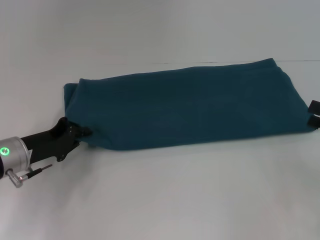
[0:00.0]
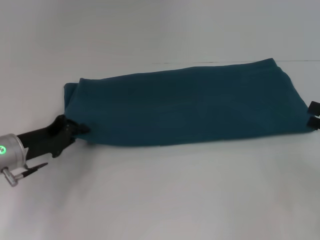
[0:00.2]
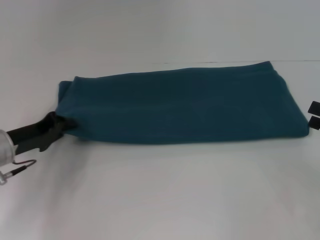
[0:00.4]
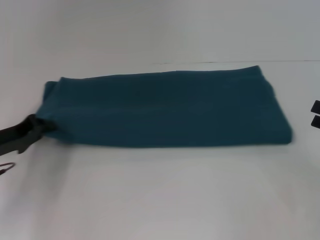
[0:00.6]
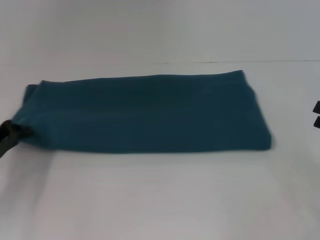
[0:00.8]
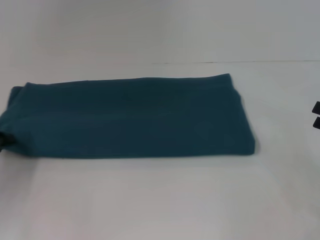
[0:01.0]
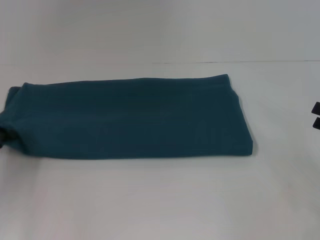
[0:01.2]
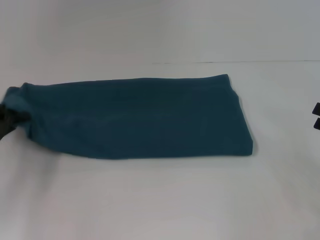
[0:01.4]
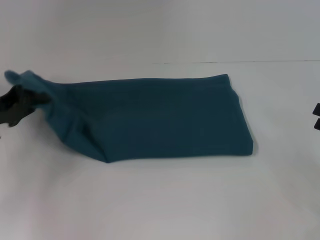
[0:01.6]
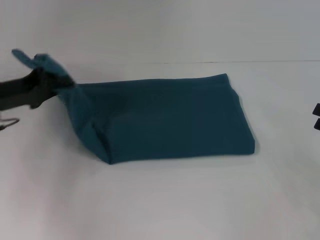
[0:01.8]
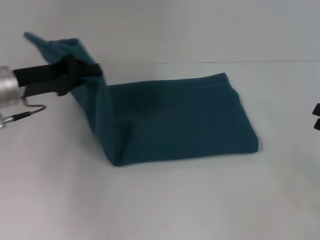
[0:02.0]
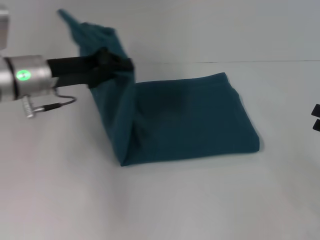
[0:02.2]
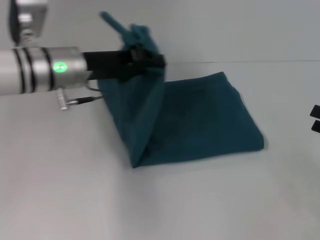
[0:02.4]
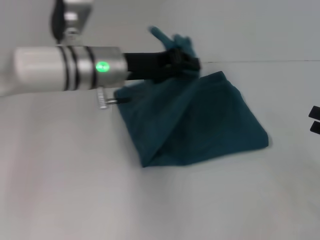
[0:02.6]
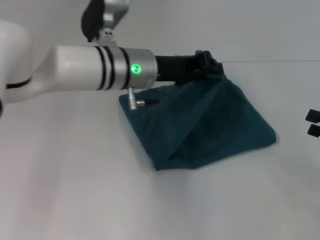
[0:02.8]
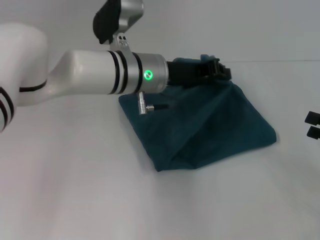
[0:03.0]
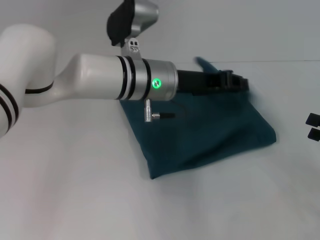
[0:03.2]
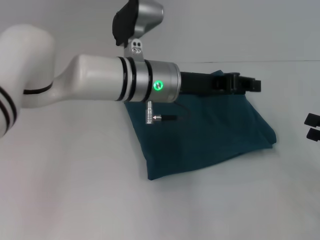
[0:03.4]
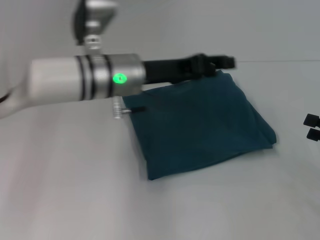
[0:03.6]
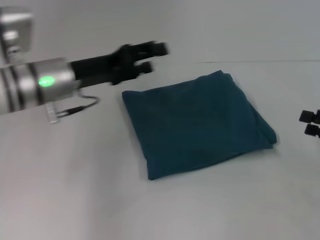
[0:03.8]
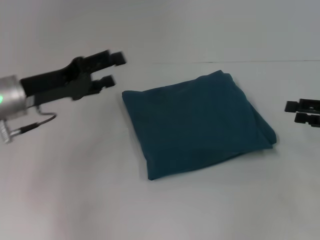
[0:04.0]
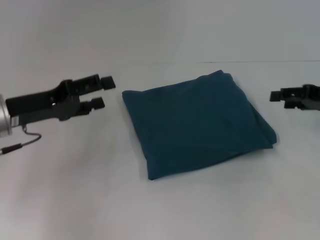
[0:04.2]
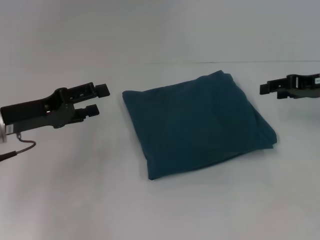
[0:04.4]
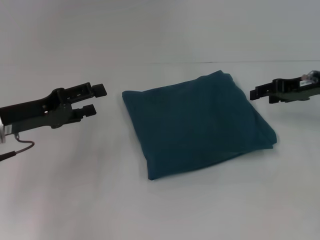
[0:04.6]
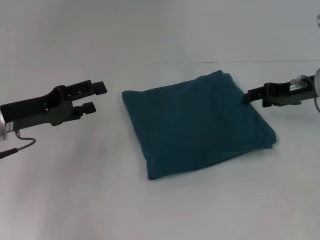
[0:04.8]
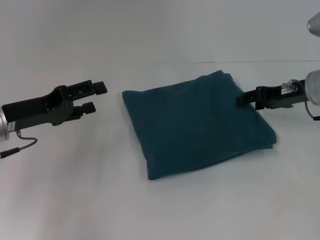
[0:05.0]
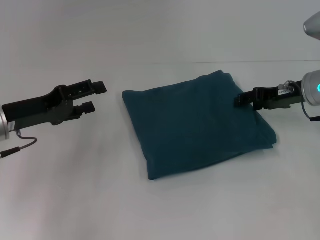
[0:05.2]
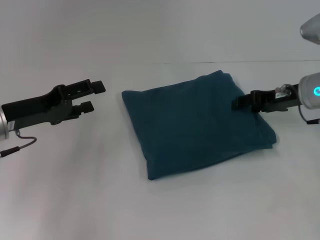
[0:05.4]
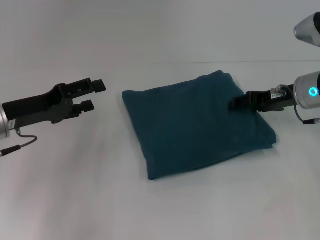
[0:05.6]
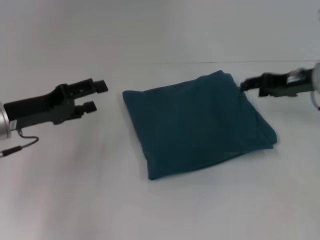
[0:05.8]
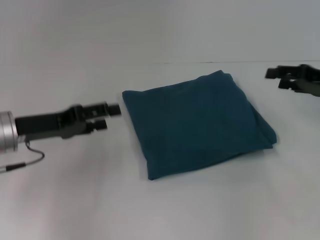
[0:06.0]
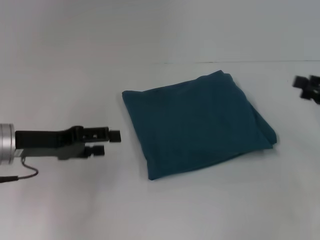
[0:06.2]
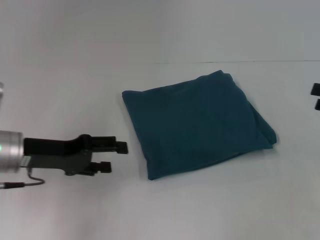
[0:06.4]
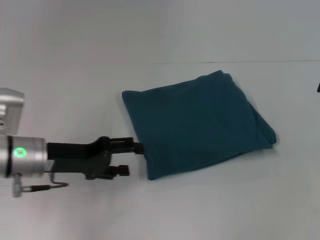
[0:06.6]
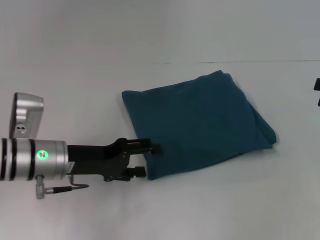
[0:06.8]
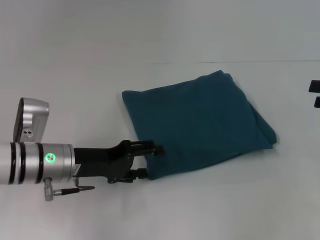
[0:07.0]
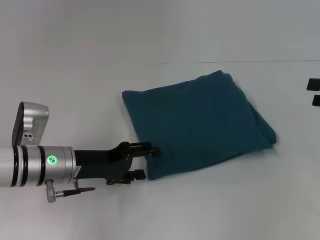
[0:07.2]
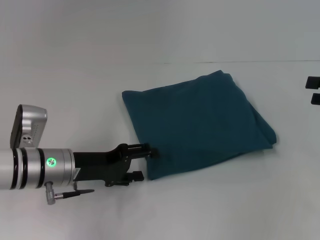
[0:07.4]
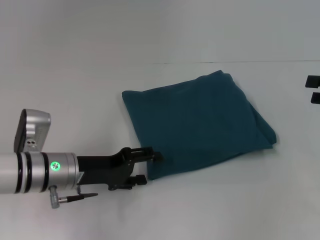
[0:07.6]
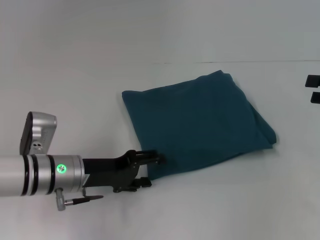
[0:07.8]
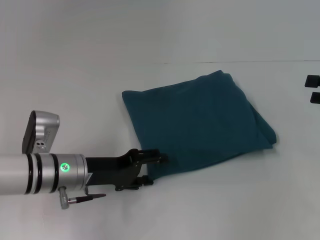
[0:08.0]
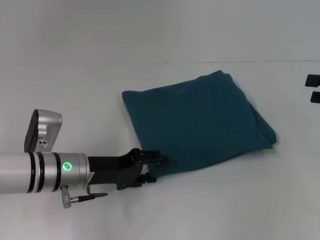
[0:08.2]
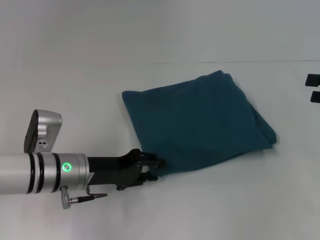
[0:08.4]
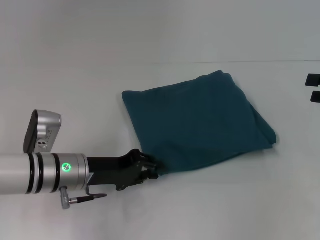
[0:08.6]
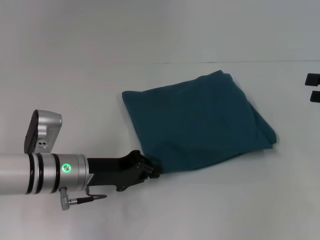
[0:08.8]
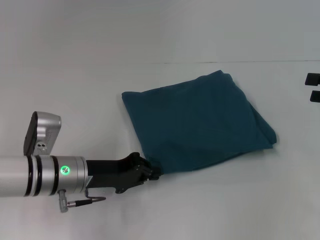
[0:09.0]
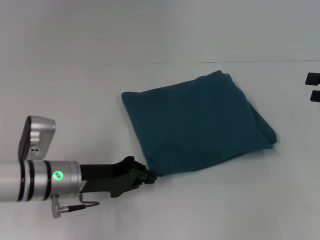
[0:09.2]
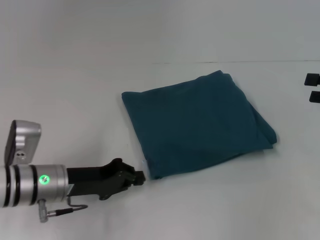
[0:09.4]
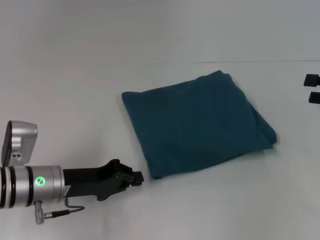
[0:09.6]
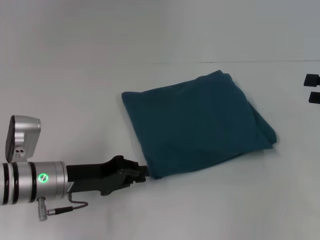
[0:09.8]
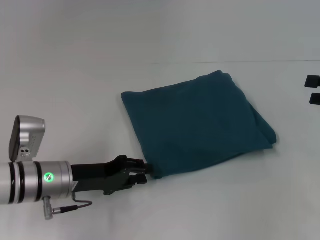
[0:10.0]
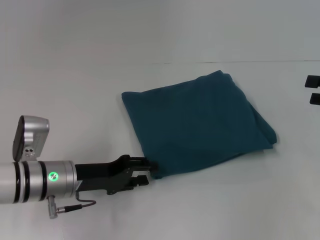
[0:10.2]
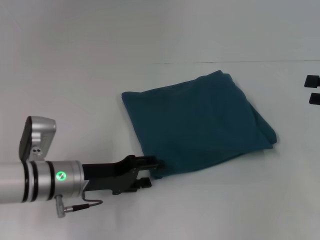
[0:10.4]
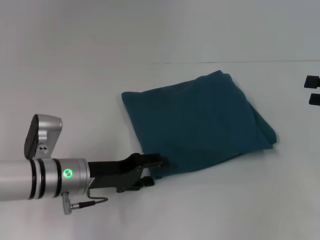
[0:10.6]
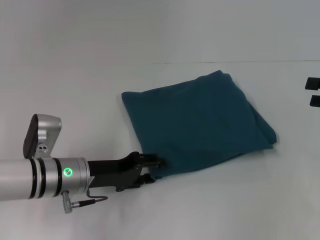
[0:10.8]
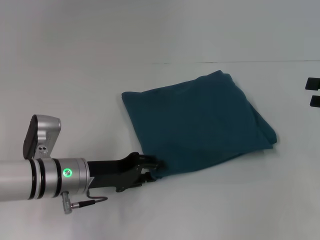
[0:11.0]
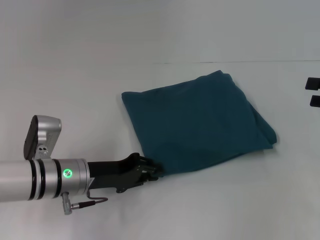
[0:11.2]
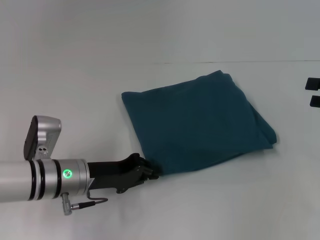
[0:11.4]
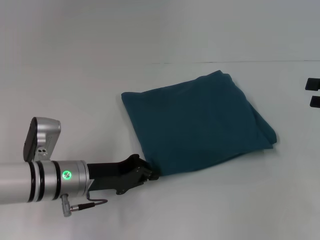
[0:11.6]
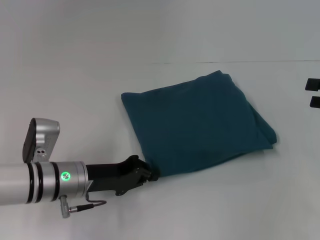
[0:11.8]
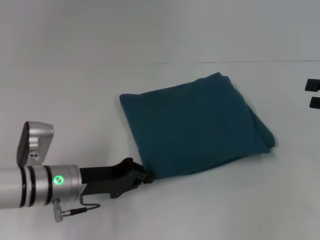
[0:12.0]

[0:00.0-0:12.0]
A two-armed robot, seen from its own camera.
Step, 0:00.0 to 0:03.4: Fold the clothes to the left.
0:00.0 to 0:01.6: The left gripper heads upward and to the left, covering roughly 10 cm.
0:01.6 to 0:03.0: The left gripper goes roughly 25 cm to the right.
0:03.0 to 0:04.4: The left gripper shifts roughly 20 cm to the left, and opens up. The right gripper moves forward, to the left and upward, some 15 cm.
0:04.4 to 0:06.0: The right gripper moves approximately 5 cm to the left and comes back.
0:06.0 to 0:07.6: The left gripper moves to the right and downward, approximately 10 cm; the right gripper heads to the right and backward, covering approximately 10 cm.
0:07.6 to 0:09.0: The left gripper closes its fingers.
0:09.0 to 0:10.4: The left gripper opens its fingers.
0:10.4 to 0:12.0: The left gripper closes up.

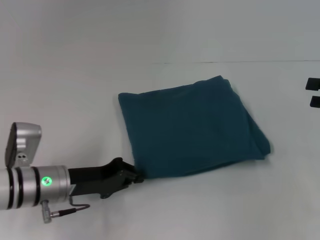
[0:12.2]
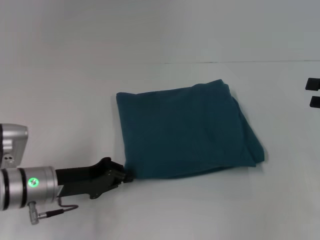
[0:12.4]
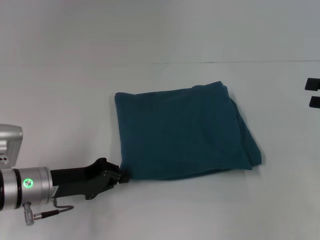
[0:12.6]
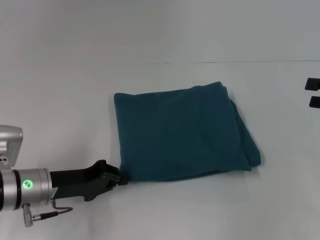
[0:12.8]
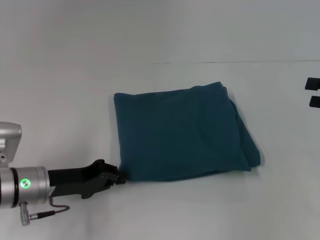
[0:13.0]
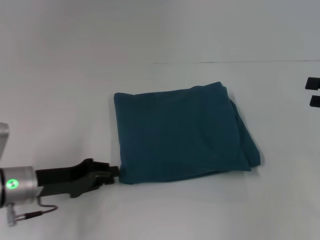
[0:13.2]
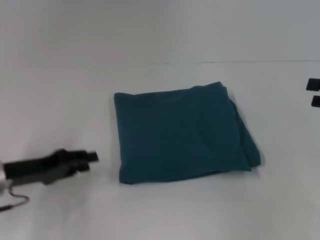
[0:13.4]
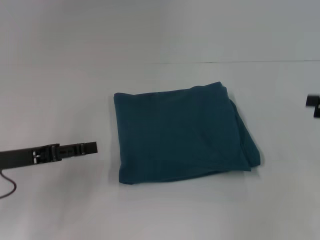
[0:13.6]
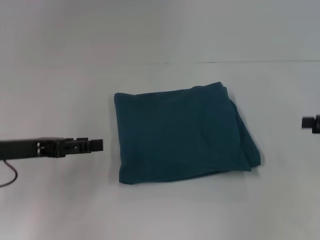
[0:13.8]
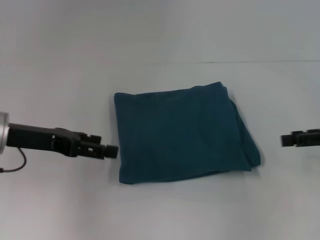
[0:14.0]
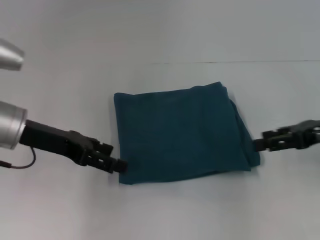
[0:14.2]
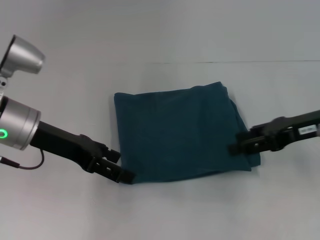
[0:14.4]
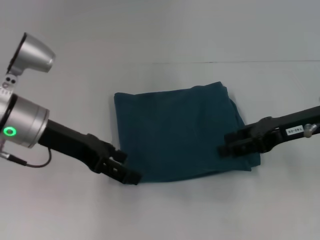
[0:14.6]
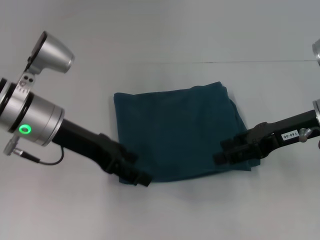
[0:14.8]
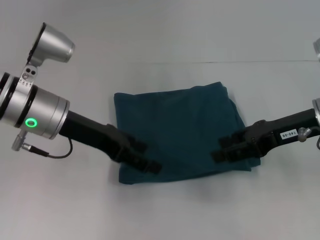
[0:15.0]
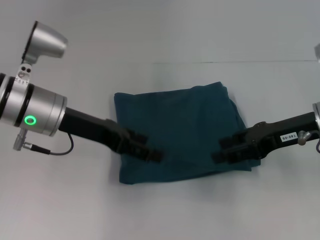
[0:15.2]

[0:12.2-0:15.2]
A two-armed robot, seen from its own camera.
0:12.2 to 0:13.8: The left gripper moves to the left and upward, about 10 cm, and opens its fingers.
0:13.8 to 0:15.2: The right gripper goes approximately 15 cm to the left, while the left gripper goes approximately 10 cm to the right and forward.

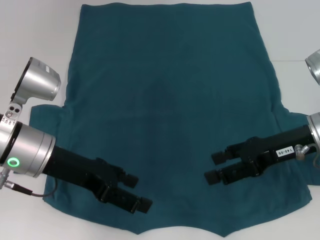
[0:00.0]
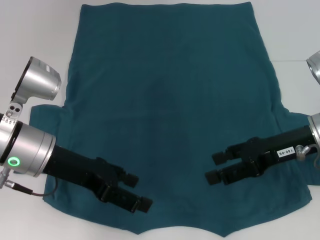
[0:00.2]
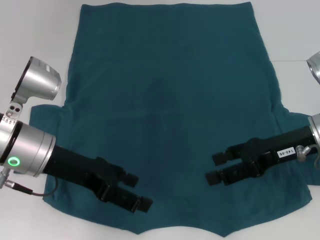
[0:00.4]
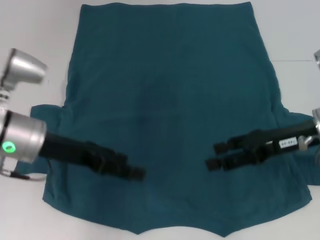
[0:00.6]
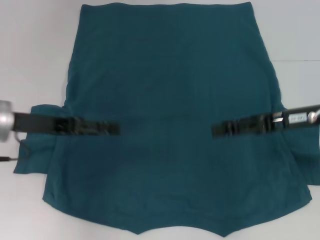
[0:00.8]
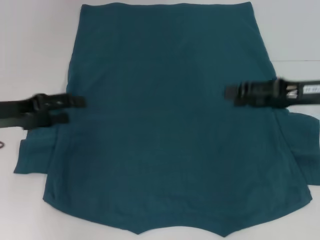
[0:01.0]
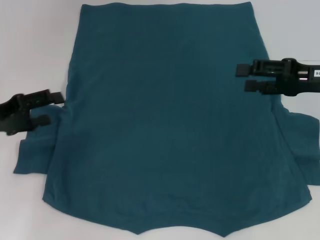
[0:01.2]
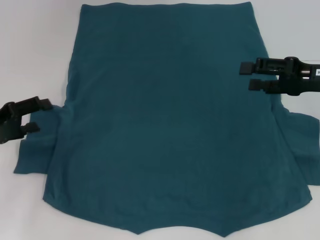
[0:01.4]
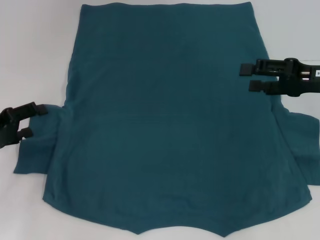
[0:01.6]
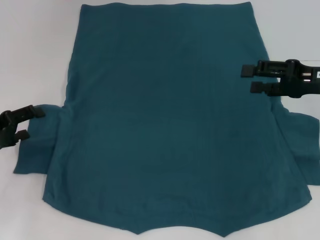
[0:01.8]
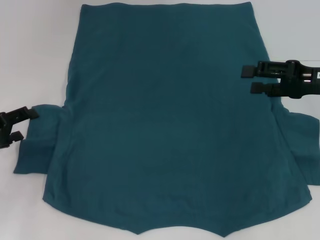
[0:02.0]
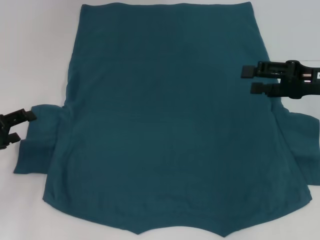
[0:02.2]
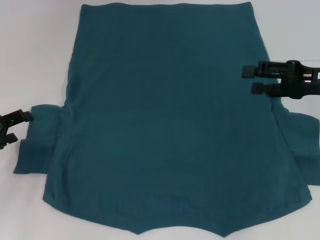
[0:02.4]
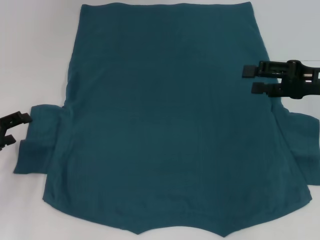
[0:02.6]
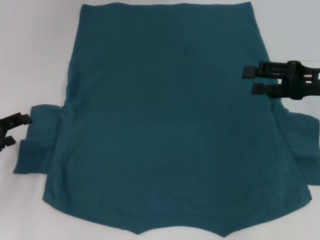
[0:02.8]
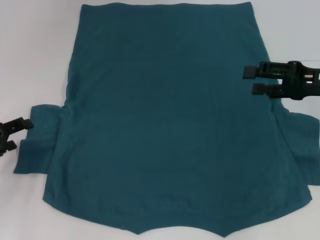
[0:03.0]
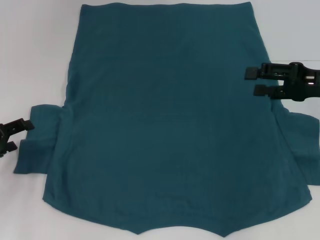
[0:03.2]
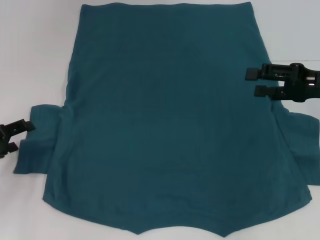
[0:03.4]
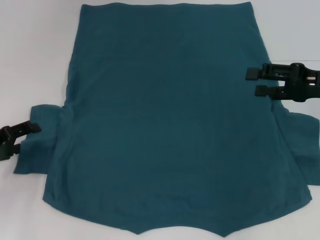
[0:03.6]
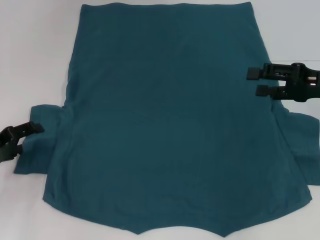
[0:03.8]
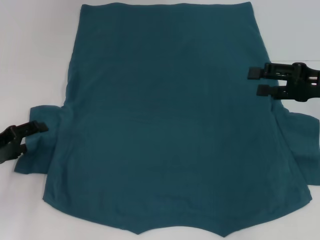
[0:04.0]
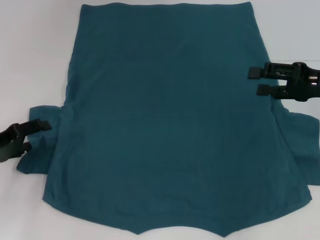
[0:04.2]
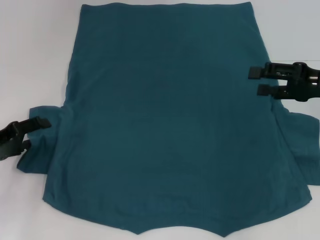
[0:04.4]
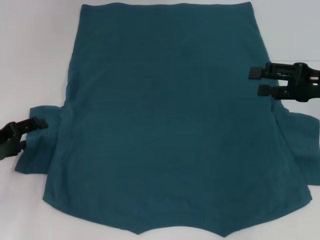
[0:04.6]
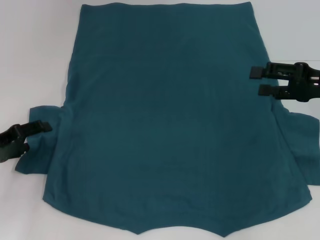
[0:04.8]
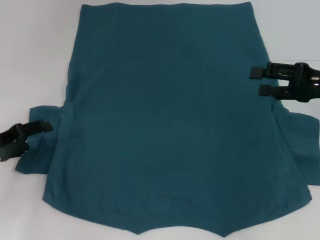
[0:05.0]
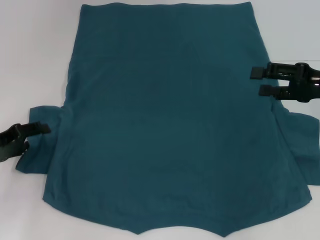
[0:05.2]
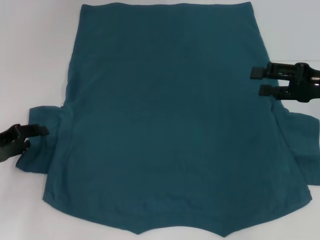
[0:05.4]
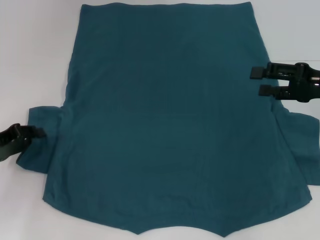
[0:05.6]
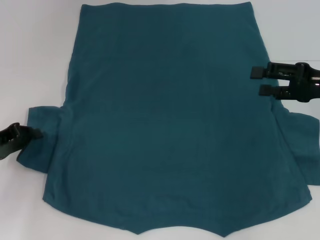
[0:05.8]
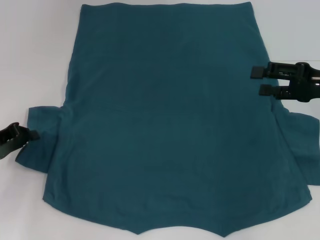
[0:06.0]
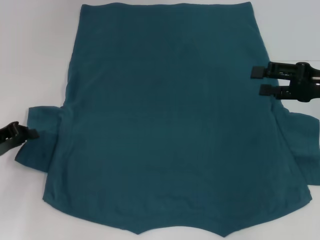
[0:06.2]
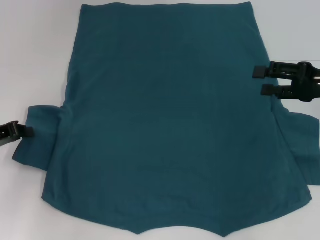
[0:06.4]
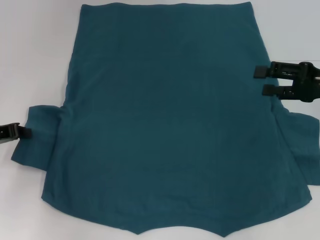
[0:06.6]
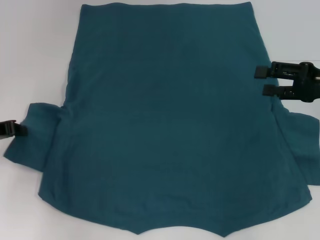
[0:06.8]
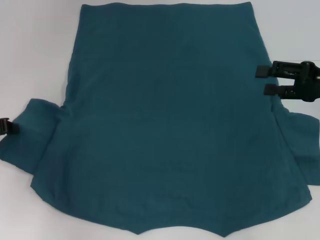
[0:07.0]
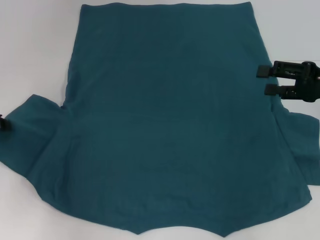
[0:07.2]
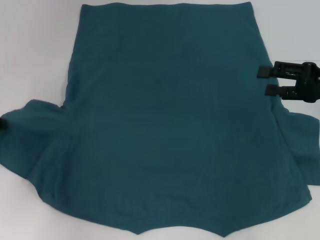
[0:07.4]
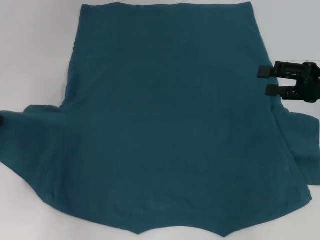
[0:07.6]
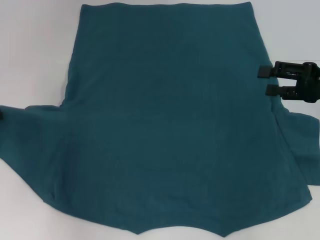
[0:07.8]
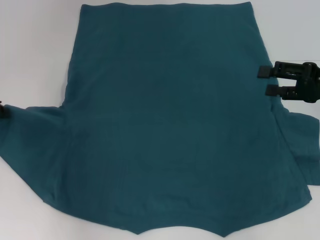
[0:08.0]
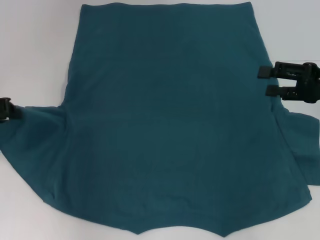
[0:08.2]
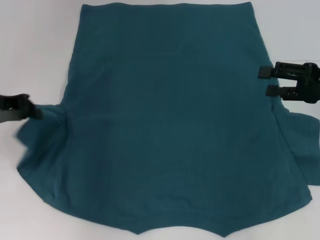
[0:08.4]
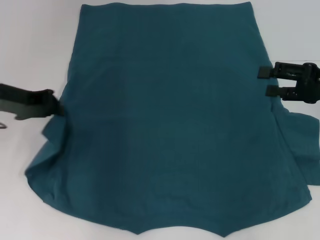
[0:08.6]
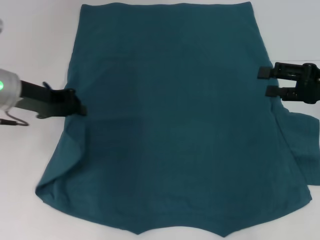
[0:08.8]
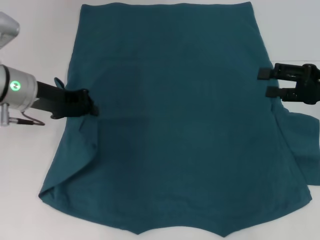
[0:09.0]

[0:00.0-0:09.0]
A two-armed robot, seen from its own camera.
0:00.0 to 0:01.6: The left gripper goes approximately 15 cm to the left. The right gripper heads to the right, covering about 5 cm.
0:01.6 to 0:04.4: The grippers make only small movements.
0:04.4 to 0:06.0: The left gripper closes up.
0:06.0 to 0:07.6: The left gripper moves upward, roughly 5 cm.
0:07.6 to 0:09.0: The left gripper moves to the right, approximately 15 cm.
